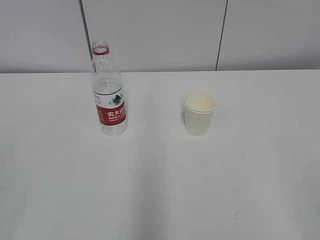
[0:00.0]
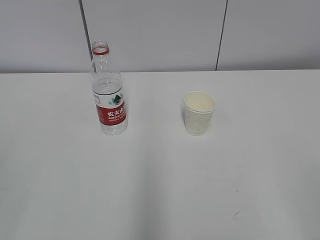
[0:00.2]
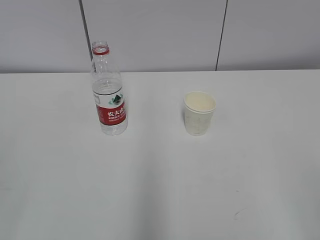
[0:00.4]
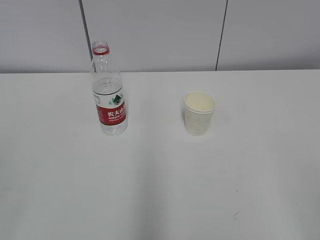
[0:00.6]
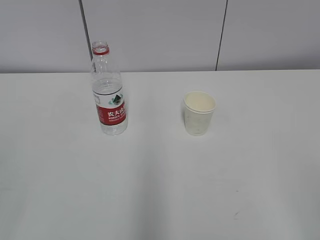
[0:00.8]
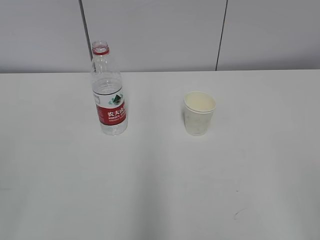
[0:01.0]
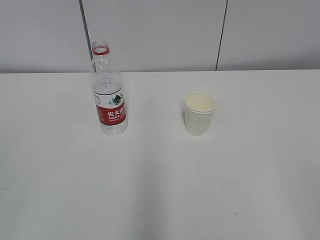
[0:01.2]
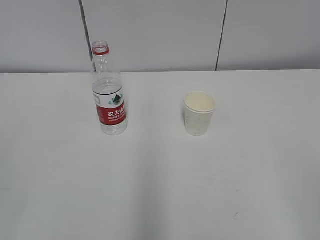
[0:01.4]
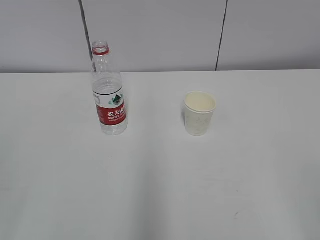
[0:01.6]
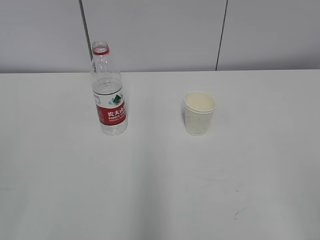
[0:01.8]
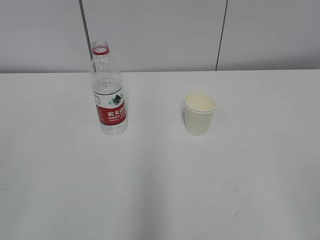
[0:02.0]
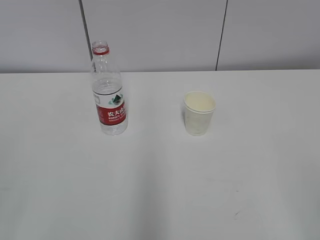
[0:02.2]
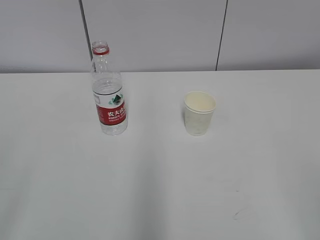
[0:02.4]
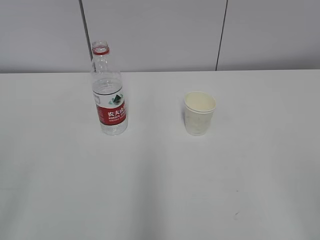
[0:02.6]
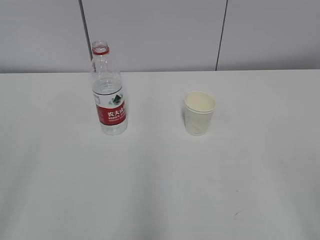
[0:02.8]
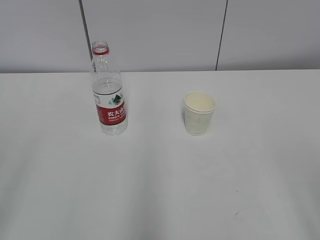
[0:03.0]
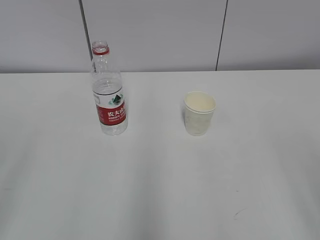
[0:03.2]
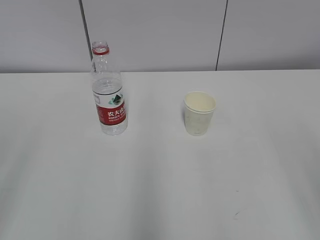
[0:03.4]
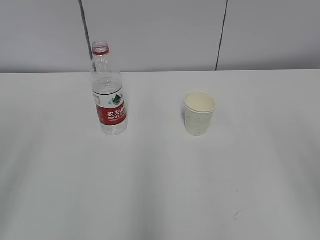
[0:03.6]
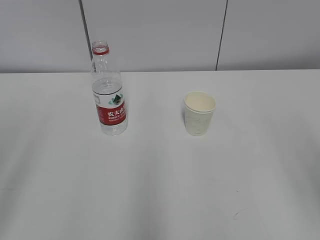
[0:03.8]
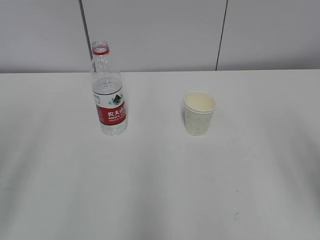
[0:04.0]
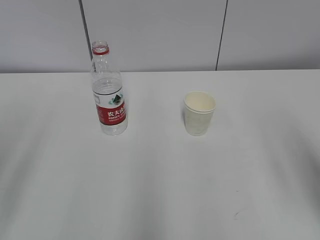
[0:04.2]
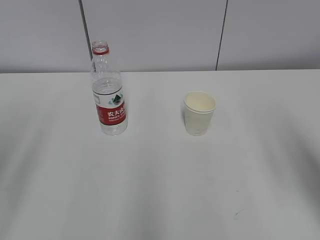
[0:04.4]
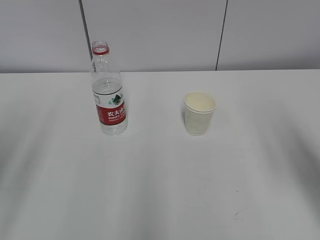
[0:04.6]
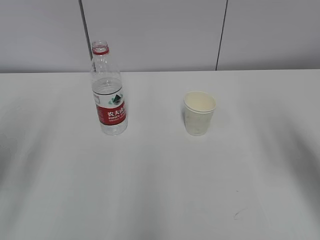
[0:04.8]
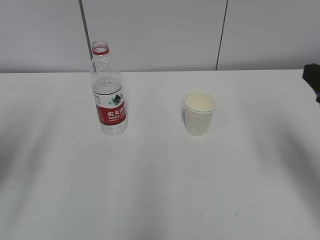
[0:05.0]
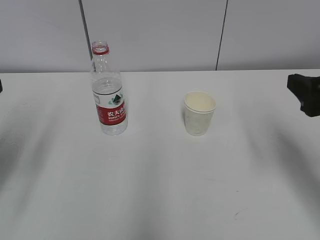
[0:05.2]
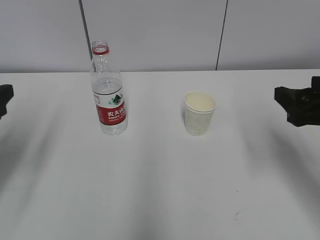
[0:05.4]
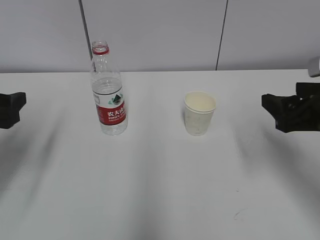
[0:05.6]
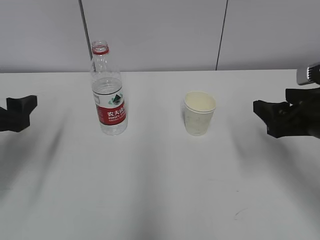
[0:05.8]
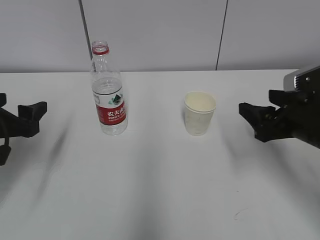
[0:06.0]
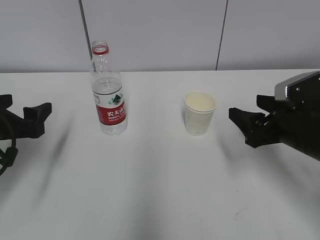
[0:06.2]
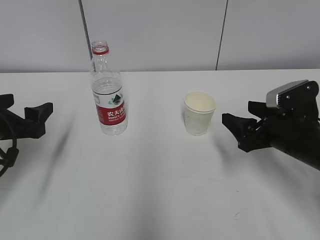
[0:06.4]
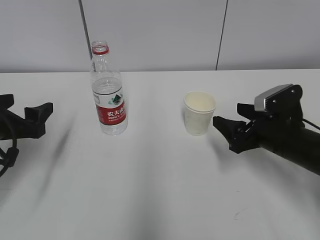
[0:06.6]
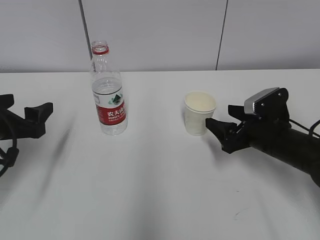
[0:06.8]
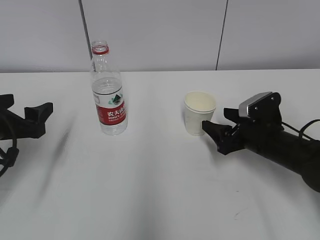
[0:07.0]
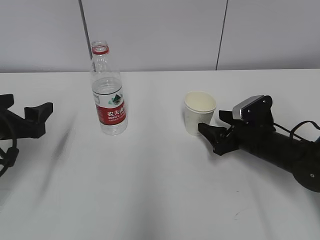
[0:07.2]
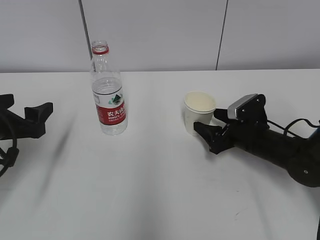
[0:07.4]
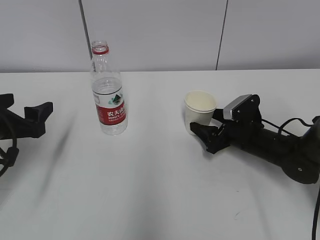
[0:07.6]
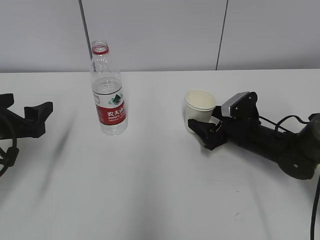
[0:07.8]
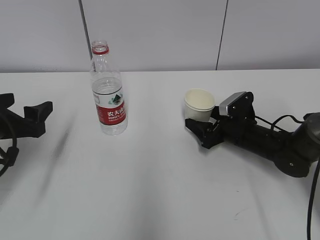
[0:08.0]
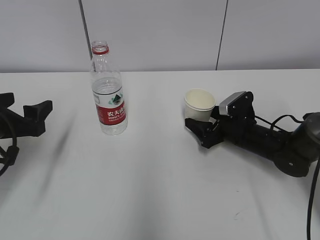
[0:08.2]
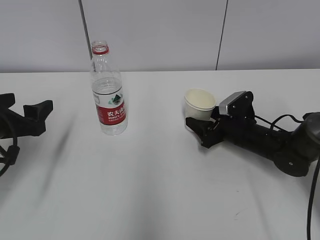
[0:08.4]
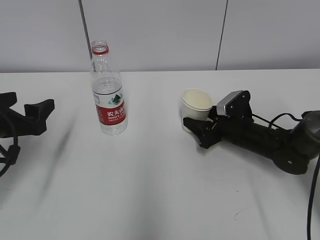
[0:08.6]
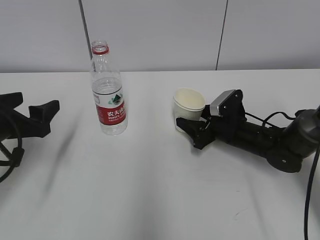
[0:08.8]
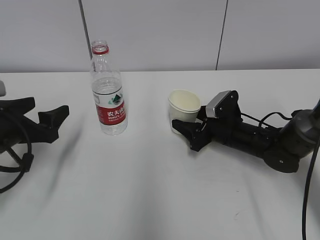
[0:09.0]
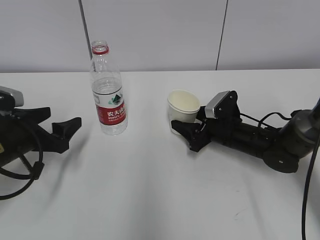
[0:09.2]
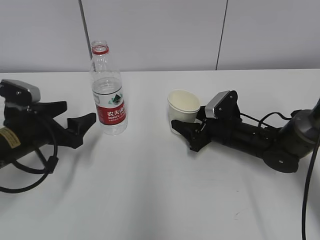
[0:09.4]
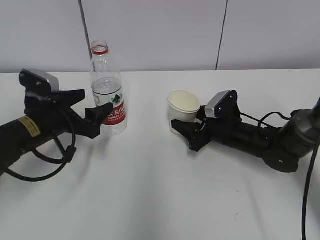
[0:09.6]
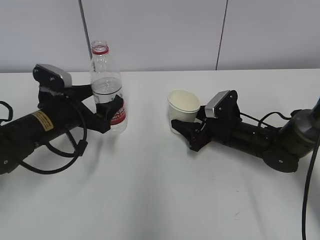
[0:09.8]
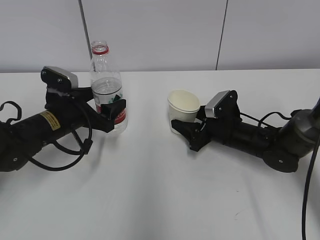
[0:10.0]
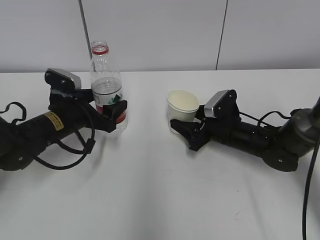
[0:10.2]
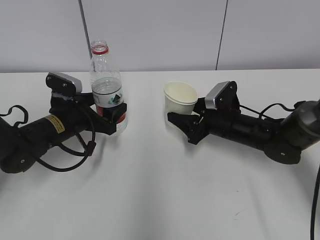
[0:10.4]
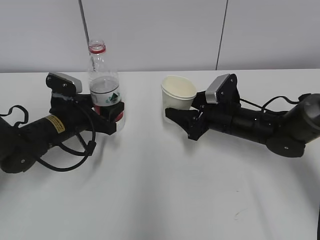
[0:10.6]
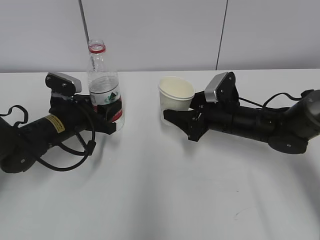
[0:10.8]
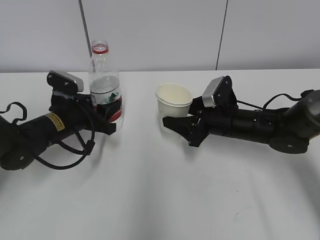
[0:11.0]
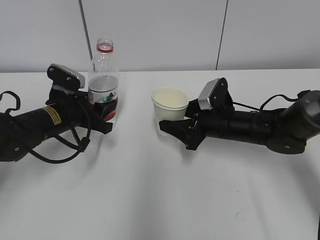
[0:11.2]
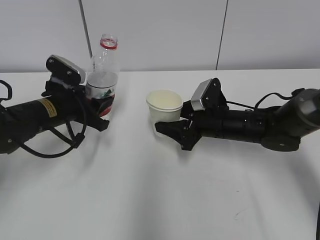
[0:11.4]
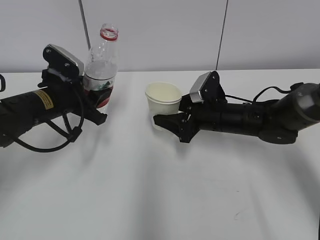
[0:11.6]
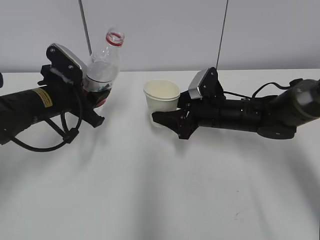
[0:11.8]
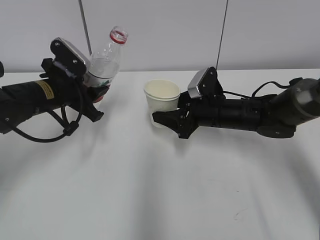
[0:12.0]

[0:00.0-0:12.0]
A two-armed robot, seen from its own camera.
Step, 0:00.0 to 0:07.0: Grab the paper cup with the right hand.
Step, 0:07.2 to 0:09.2: Grab the water bottle with the left hand.
0:03.0 to 0:04.4: The right gripper heads forward, covering approximately 15 cm.
0:04.4 to 0:06.0: The right gripper travels downward and forward by roughly 20 cm. The left gripper moves forward and downward, some 20 cm.
0:06.0 to 0:07.6: The right gripper goes roughly 15 cm downward and forward.
0:07.6 to 0:09.0: The right gripper closes its fingers.
0:09.0 to 0:10.4: The left gripper heads forward and to the right, covering some 10 cm.
0:10.4 to 0:12.0: The left gripper heads upward, covering some 5 cm, and closes.

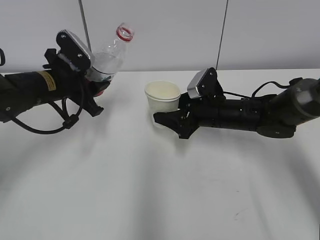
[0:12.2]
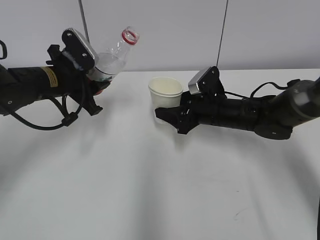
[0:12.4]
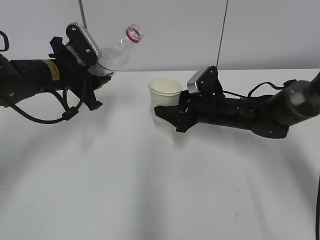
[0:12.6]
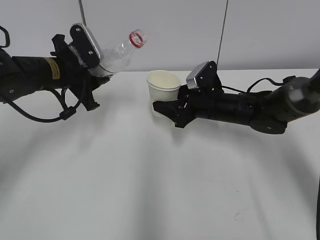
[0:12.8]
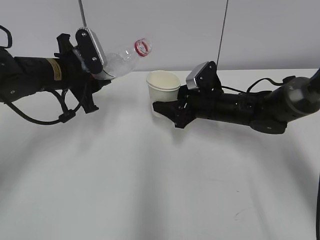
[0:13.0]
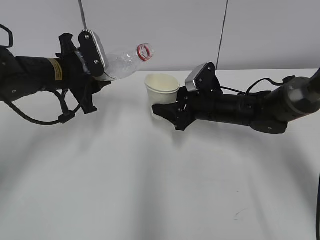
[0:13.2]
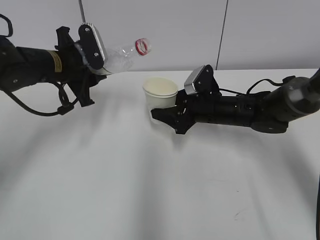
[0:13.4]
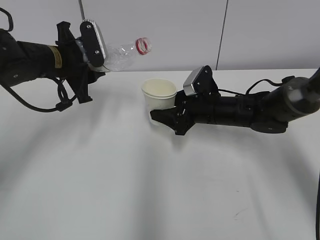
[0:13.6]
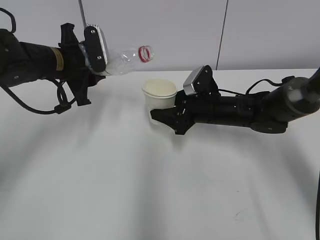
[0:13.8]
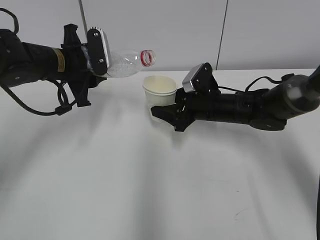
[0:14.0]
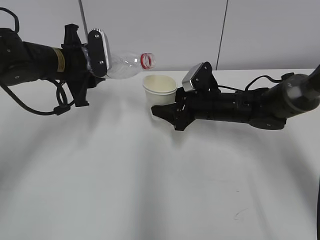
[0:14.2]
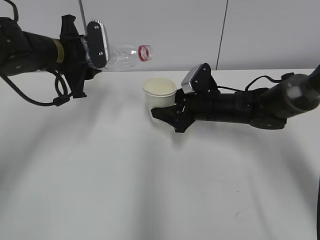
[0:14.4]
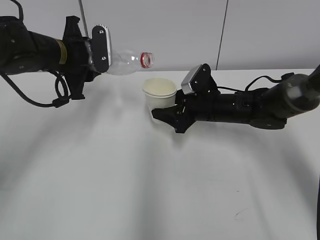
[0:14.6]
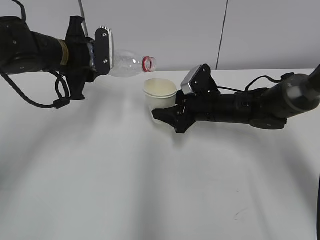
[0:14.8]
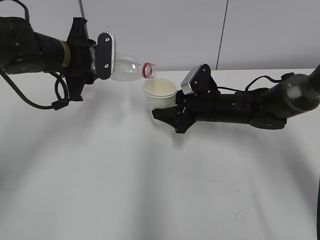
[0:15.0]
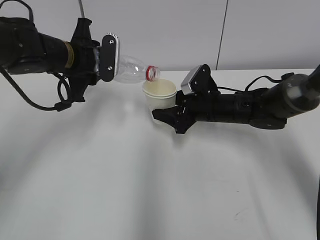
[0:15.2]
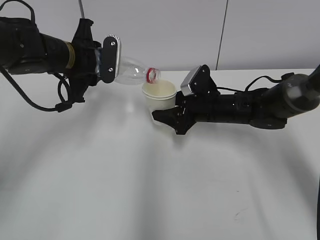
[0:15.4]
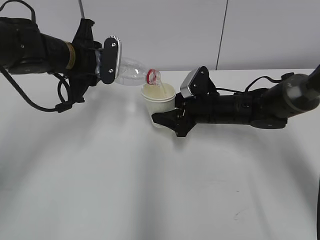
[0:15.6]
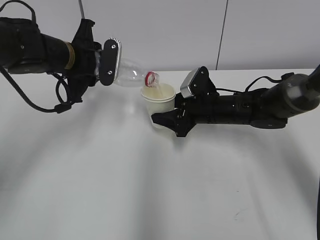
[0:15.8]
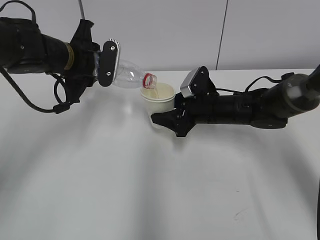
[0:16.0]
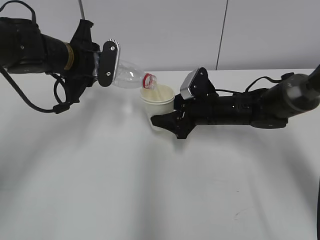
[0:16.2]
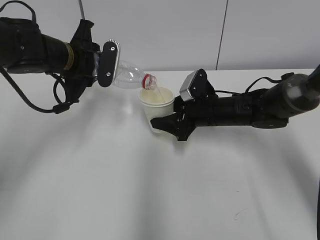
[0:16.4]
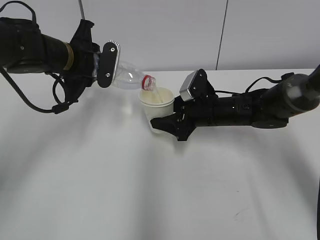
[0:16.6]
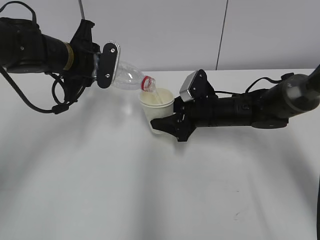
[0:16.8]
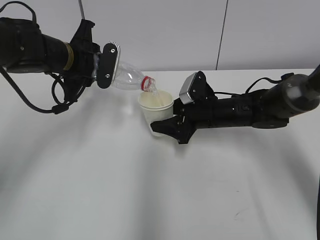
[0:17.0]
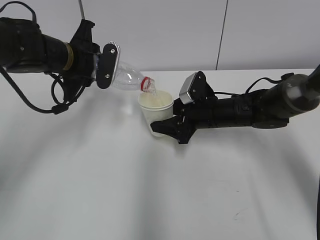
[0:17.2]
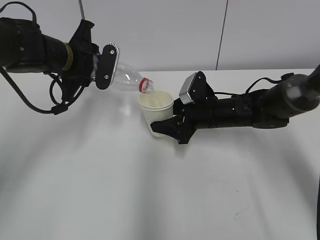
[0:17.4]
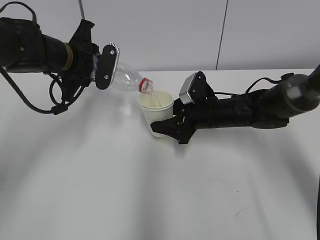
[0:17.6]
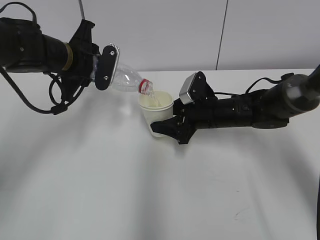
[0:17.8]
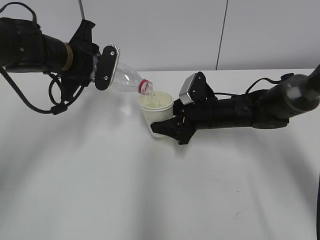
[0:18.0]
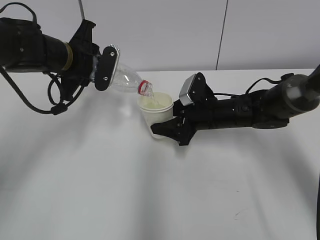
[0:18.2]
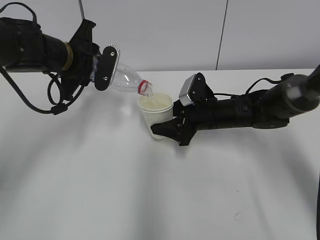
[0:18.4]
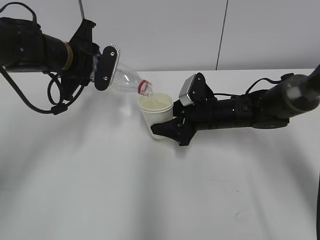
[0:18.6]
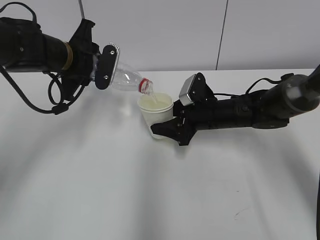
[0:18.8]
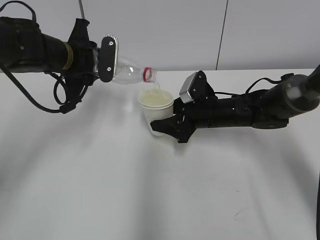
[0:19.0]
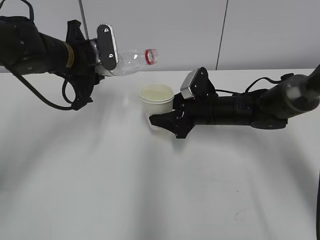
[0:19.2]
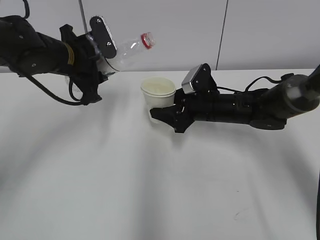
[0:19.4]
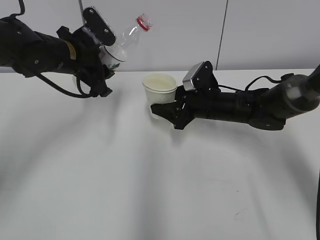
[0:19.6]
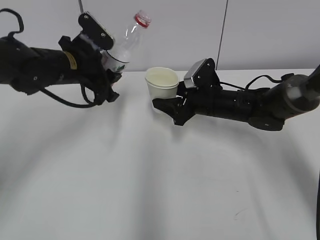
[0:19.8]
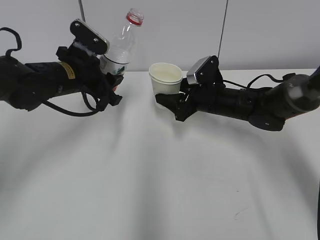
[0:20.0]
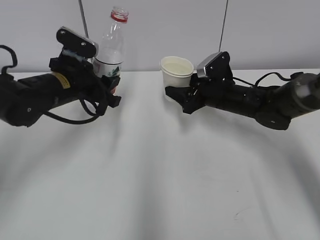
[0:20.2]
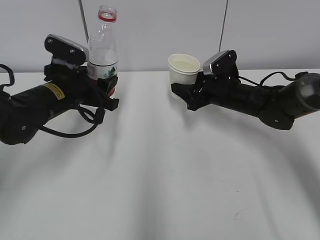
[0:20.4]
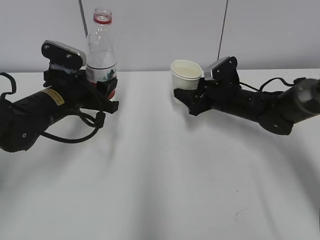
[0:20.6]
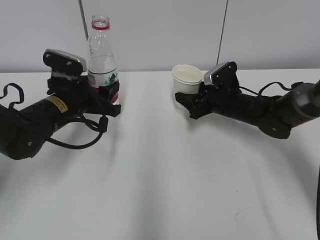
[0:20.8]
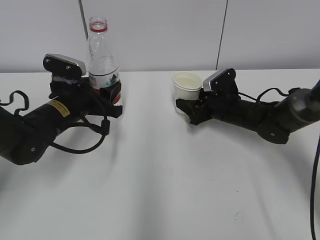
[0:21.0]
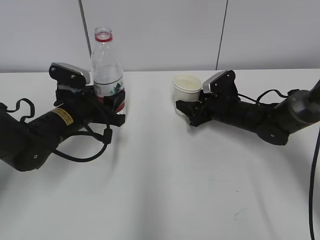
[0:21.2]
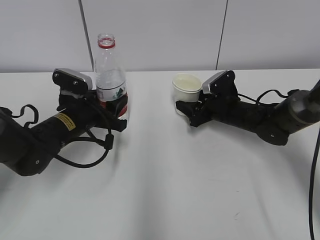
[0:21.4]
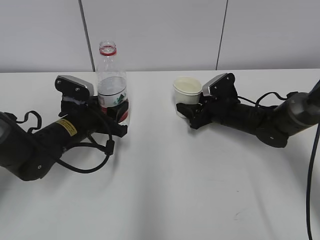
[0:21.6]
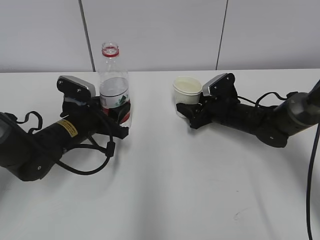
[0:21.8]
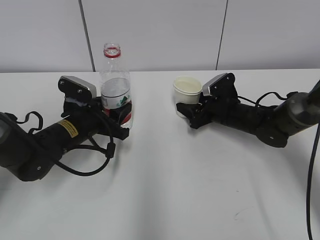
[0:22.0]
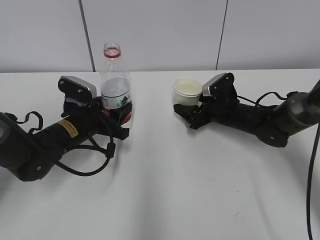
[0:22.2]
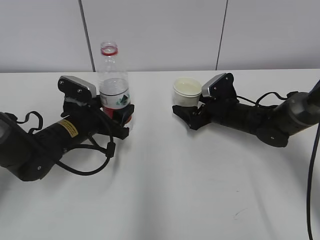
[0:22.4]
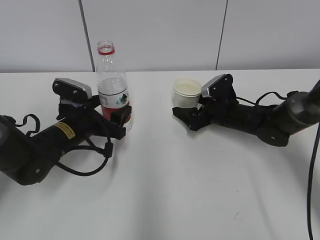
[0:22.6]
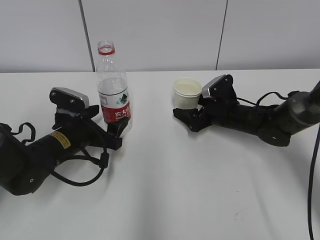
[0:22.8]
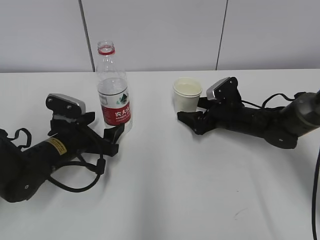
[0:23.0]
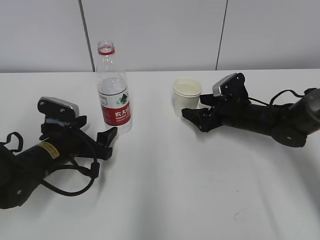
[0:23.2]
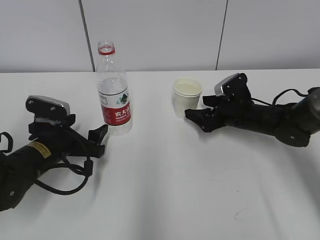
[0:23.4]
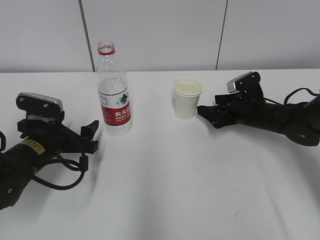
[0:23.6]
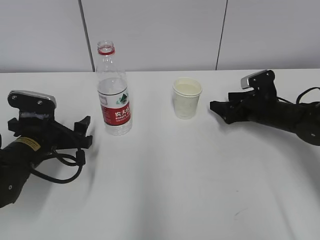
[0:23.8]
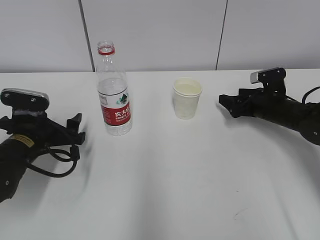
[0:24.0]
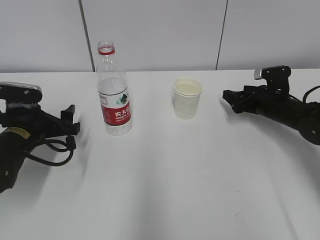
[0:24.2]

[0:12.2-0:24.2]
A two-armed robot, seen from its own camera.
Step, 0:13.0 to 0:15.8: Fill water with the right hand.
Step, 0:13.0 to 0:15.8: Pour water with the left hand.
Step, 0:17.2 to 0:18.4: Place the paper cup with the right hand.
0:13.8 to 0:15.2: The grippers make only small movements.
0:15.2 to 0:18.2: The grippers move only a little.
0:19.8 to 0:21.2: The left gripper goes some 10 cm downward; the right gripper moves some 5 cm.
0:21.2 to 0:22.6: The right gripper opens up. The left gripper opens its fingers.
0:22.6 to 0:24.2: The right gripper is displaced to the right by roughly 10 cm, and closes up. Meanwhile the left gripper goes roughly 5 cm to the left.
